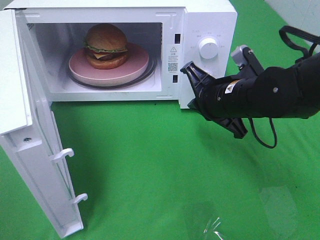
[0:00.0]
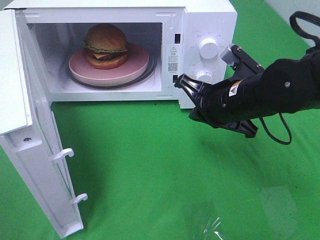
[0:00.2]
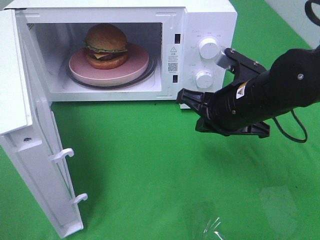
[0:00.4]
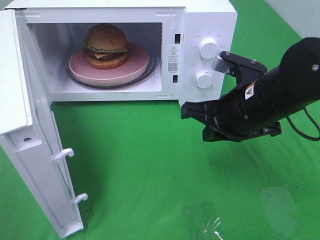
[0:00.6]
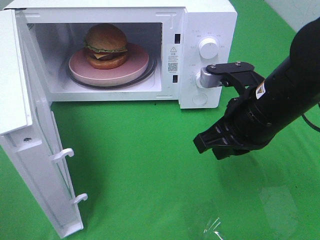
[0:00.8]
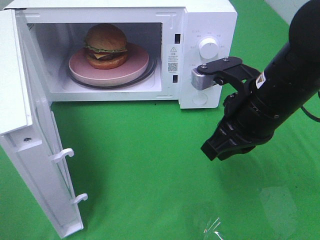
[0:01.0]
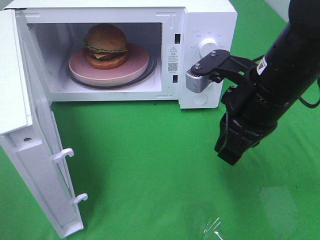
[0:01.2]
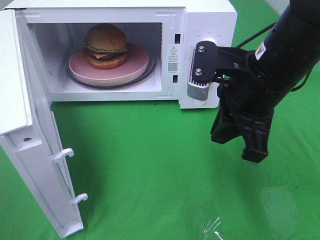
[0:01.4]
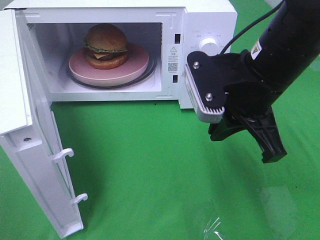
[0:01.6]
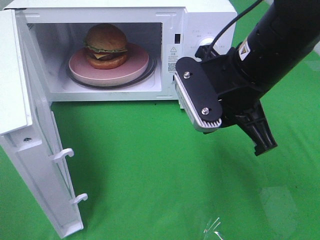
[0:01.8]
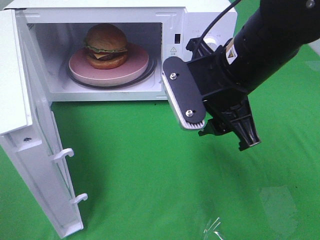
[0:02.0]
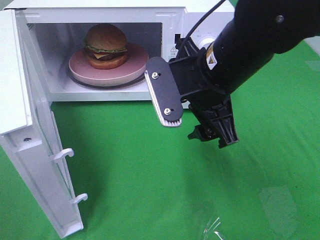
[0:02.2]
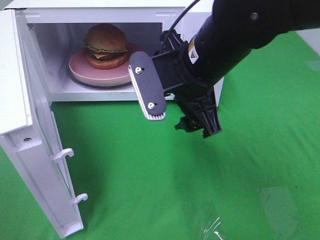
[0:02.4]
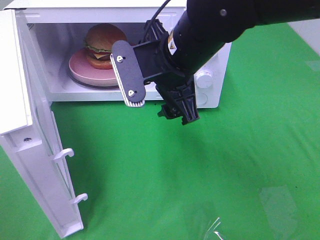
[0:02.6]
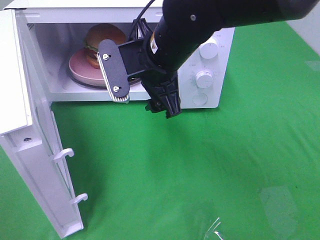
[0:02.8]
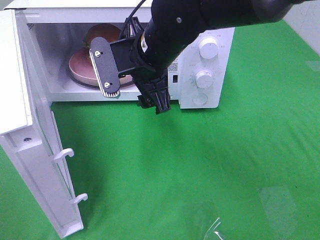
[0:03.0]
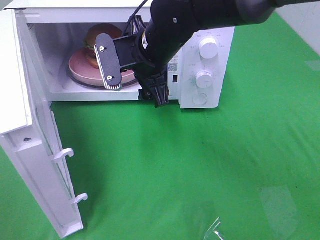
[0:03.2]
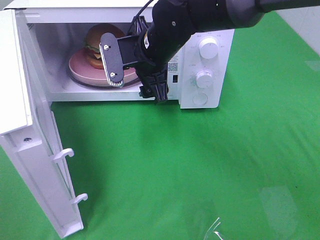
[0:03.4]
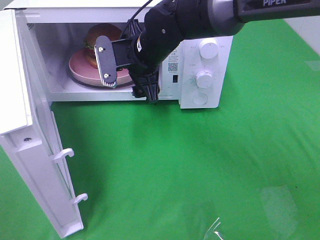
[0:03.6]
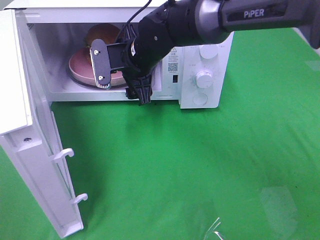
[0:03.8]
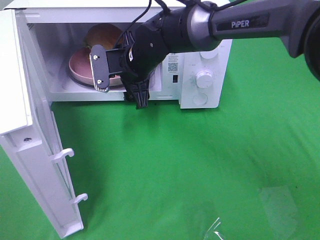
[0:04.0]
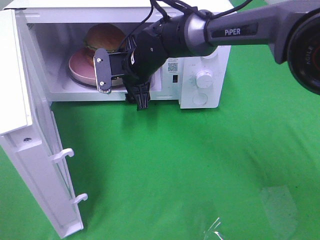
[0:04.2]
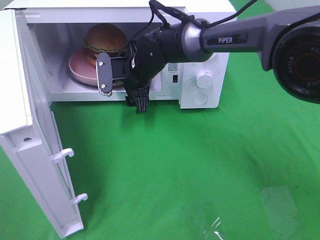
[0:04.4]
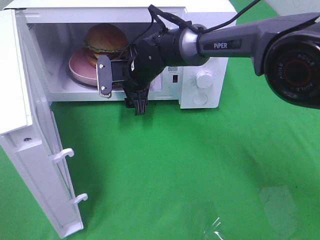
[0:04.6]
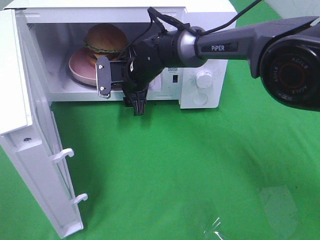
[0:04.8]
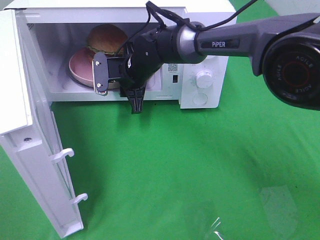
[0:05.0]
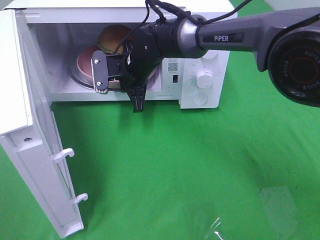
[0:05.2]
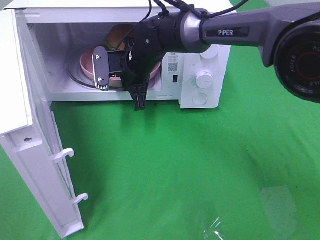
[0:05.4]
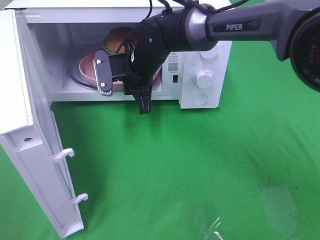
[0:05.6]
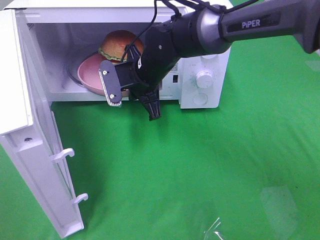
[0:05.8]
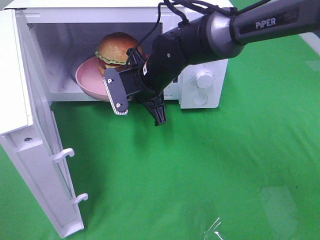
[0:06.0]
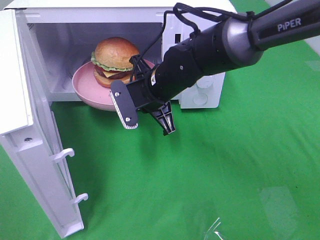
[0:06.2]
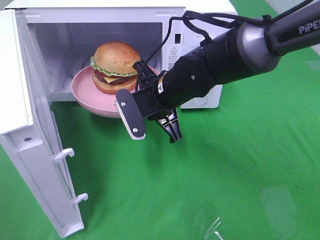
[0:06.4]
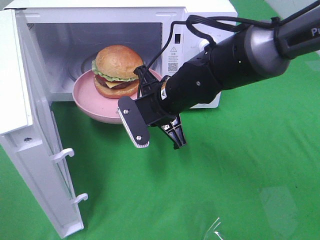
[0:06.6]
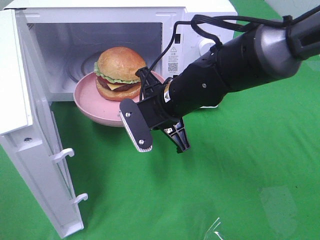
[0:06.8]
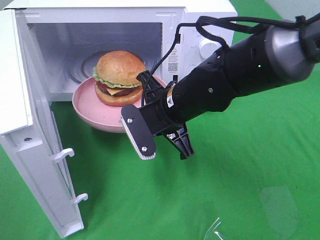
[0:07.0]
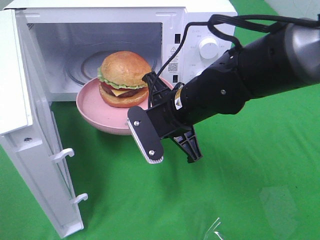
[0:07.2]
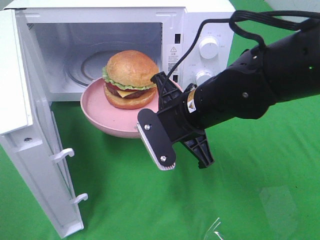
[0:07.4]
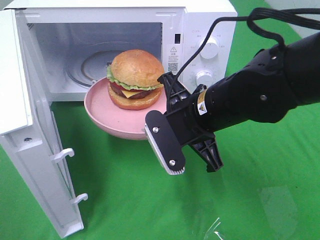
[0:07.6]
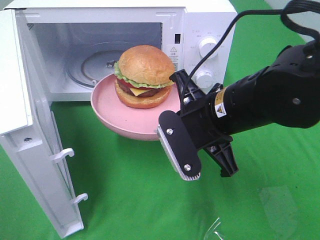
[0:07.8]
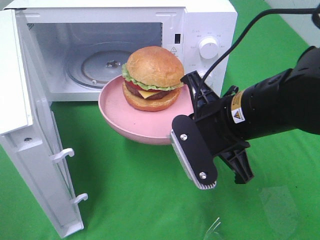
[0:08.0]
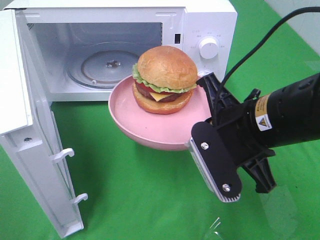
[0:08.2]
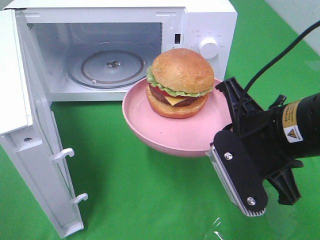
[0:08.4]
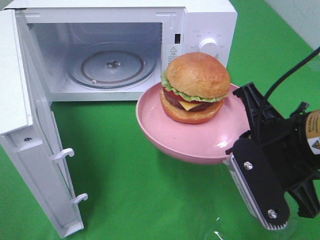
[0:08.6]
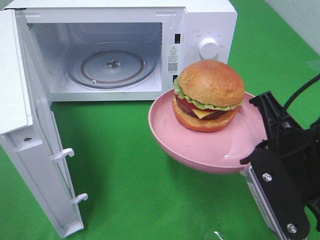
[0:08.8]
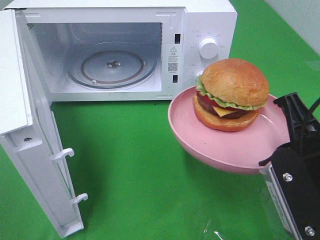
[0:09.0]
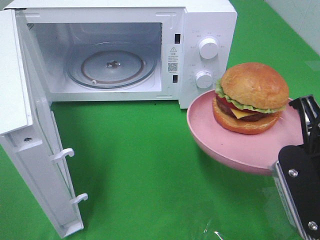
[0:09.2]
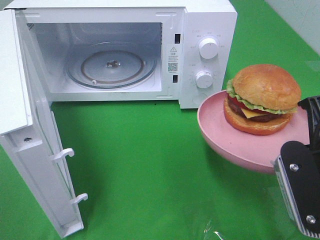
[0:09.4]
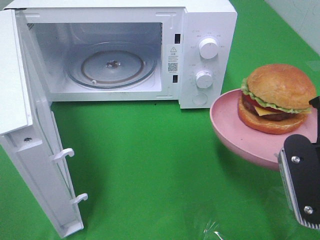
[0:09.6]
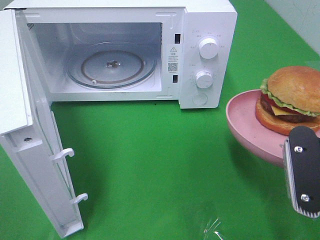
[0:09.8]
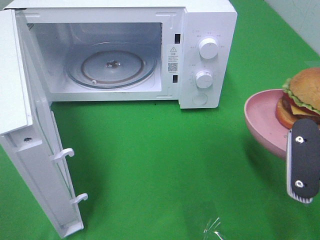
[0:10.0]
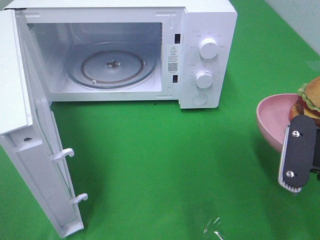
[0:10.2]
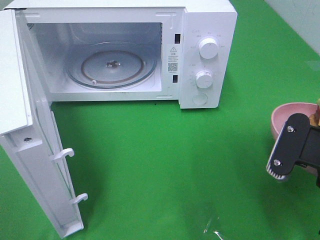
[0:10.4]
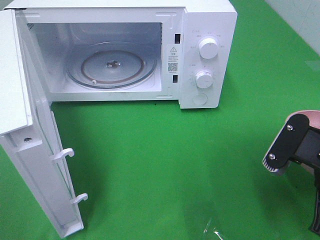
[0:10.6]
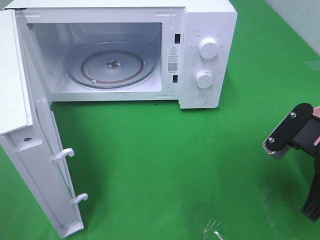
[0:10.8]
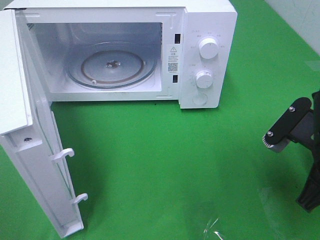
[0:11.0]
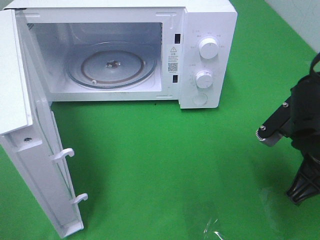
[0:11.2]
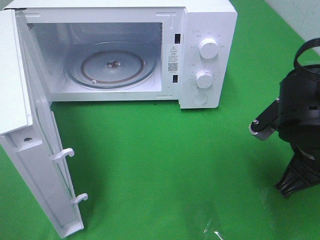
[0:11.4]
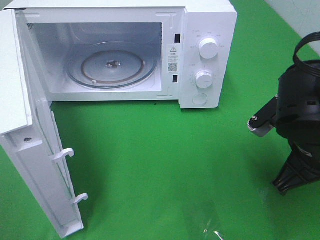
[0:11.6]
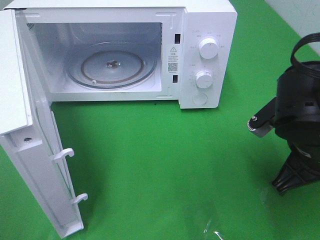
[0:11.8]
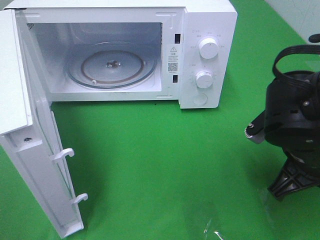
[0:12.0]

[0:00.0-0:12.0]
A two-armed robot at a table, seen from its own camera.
Task of the whole recording: Heat the burger.
Step, 0:00.0 to 0:05.8: Right hand: grab the plate with the hamburger.
0:00.0 to 0:01.6: The right gripper moves upward, some 10 cm.
0:01.6 to 0:03.0: The right gripper is displaced to the left and forward by approximately 15 cm, and opens up.
0:03.0 to 0:04.4: The right gripper moves forward and downward, some 15 cm.
0:04.4 to 0:06.0: The right gripper goes about 5 cm backward, and closes up.
0:06.0 to 0:07.6: The right gripper heads backward and to the right, covering approximately 15 cm.
0:07.6 to 0:09.0: The right gripper is displaced to the right and backward by approximately 15 cm.
0:10.4 to 0:12.0: The right gripper heads forward, covering roughly 5 cm.

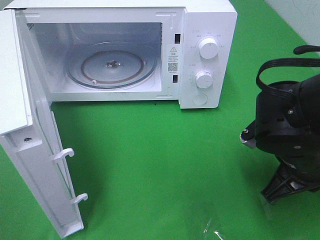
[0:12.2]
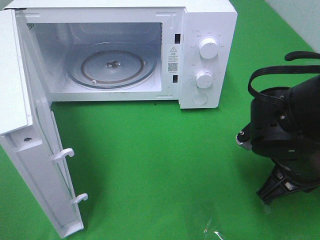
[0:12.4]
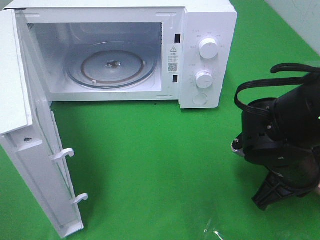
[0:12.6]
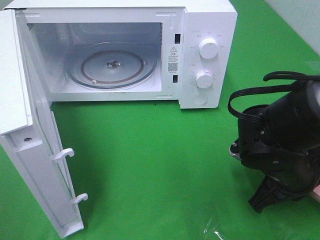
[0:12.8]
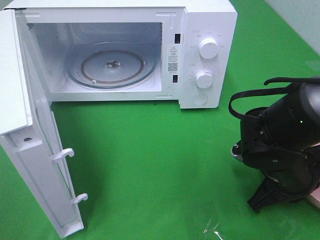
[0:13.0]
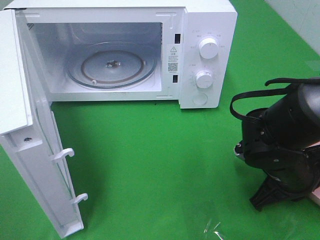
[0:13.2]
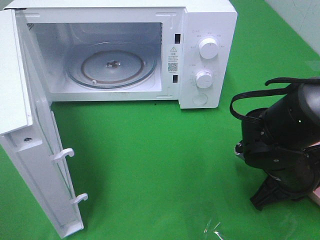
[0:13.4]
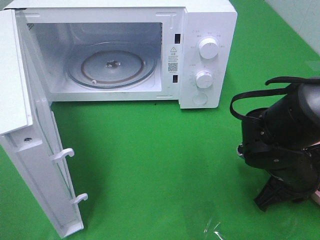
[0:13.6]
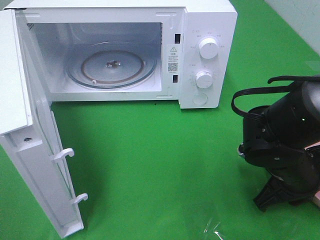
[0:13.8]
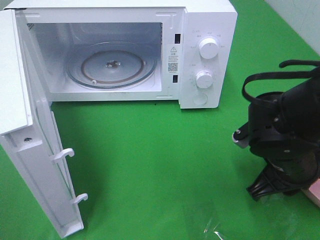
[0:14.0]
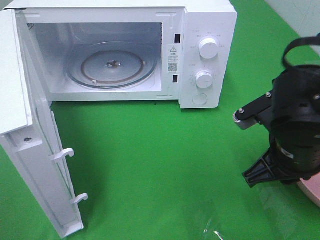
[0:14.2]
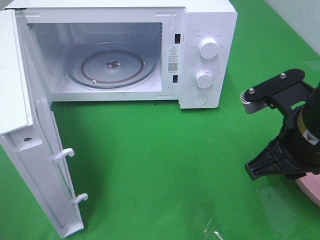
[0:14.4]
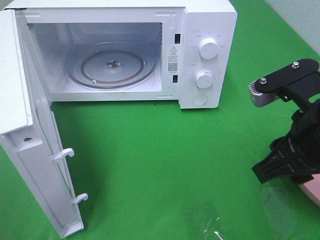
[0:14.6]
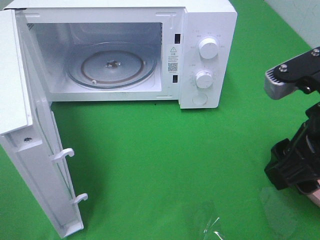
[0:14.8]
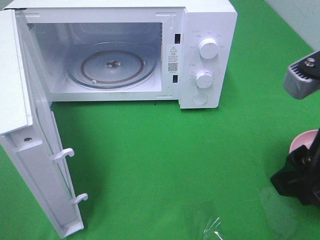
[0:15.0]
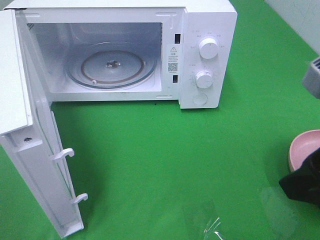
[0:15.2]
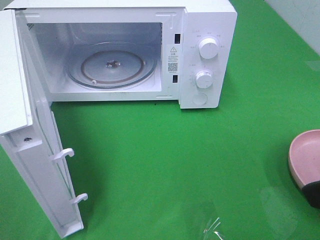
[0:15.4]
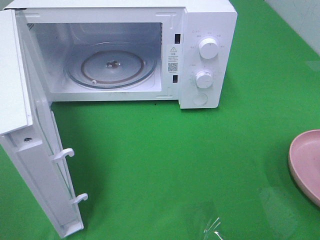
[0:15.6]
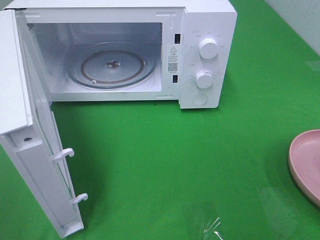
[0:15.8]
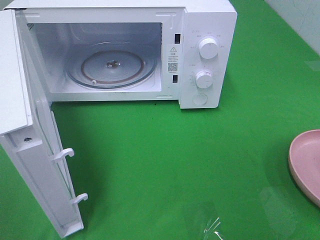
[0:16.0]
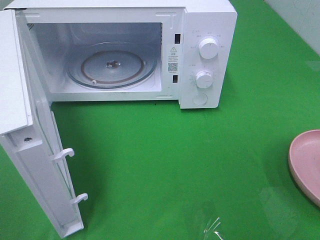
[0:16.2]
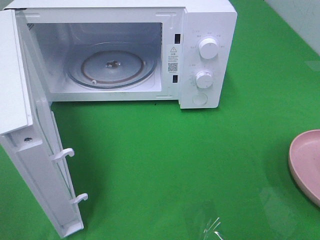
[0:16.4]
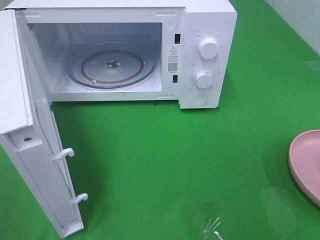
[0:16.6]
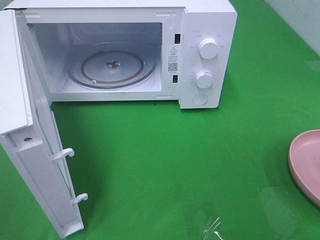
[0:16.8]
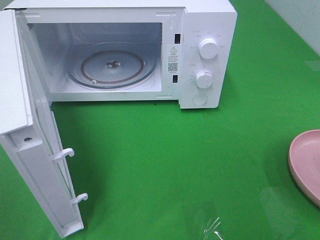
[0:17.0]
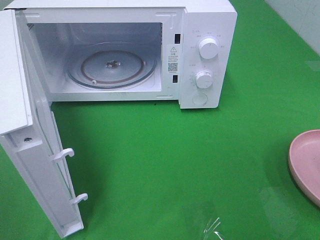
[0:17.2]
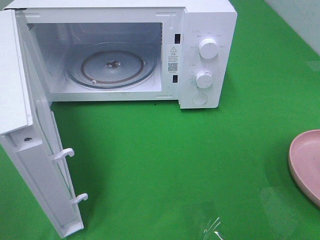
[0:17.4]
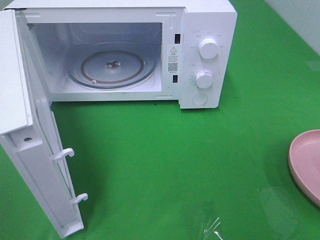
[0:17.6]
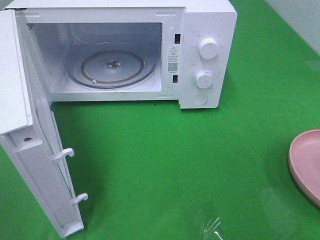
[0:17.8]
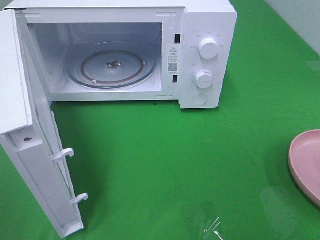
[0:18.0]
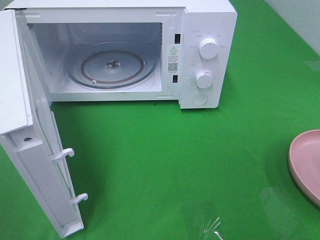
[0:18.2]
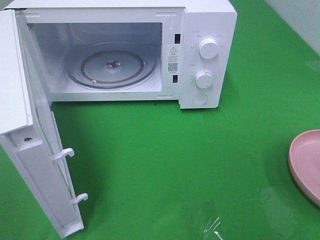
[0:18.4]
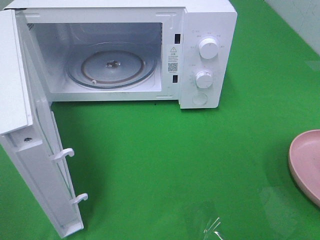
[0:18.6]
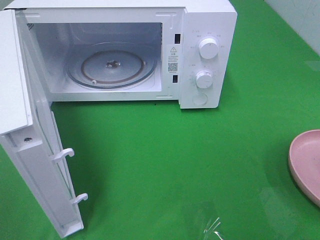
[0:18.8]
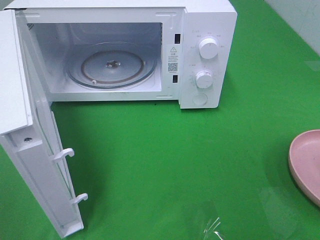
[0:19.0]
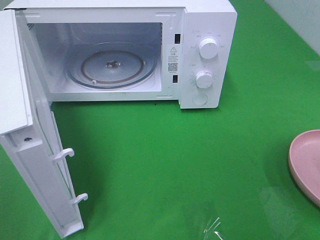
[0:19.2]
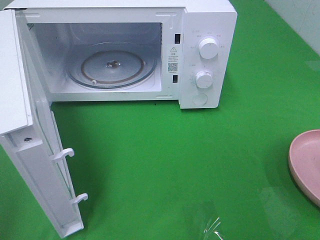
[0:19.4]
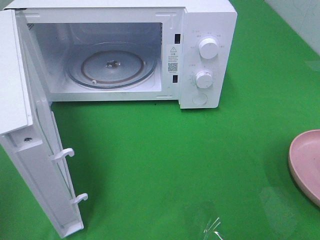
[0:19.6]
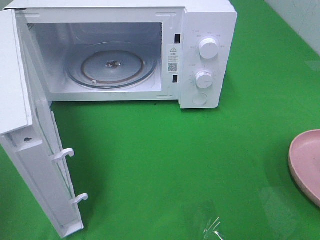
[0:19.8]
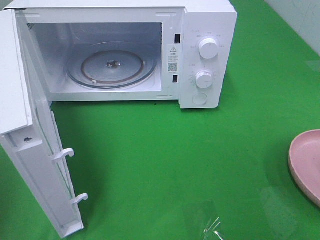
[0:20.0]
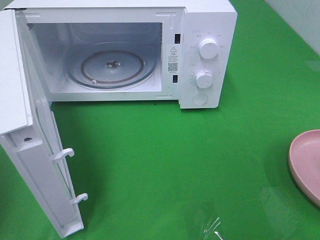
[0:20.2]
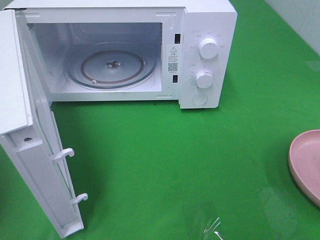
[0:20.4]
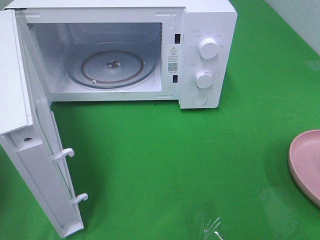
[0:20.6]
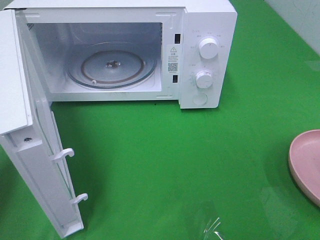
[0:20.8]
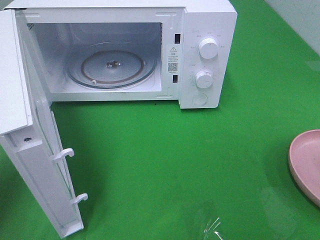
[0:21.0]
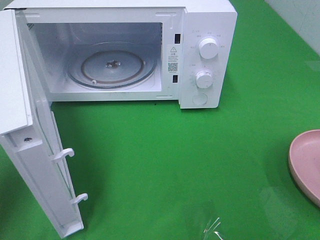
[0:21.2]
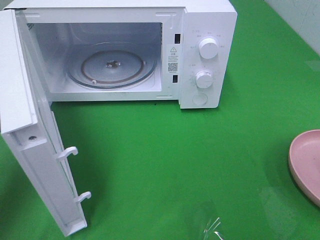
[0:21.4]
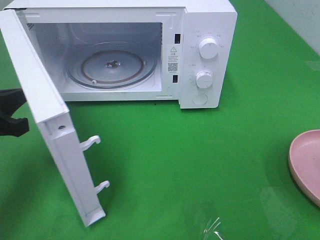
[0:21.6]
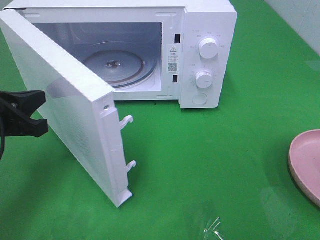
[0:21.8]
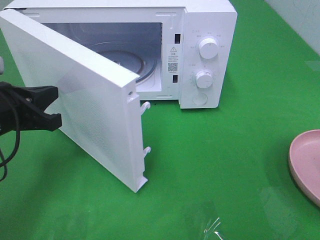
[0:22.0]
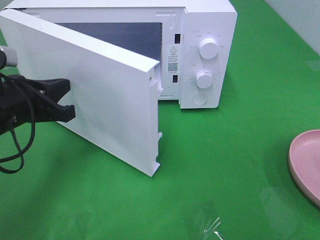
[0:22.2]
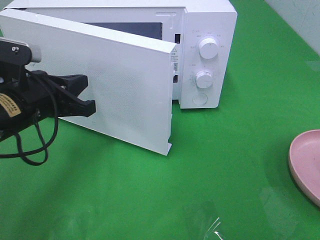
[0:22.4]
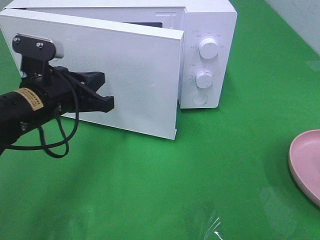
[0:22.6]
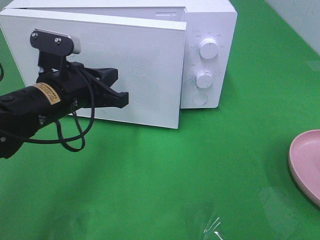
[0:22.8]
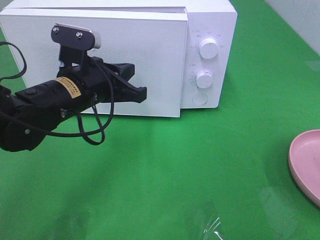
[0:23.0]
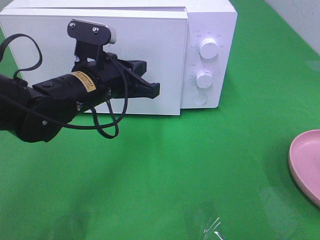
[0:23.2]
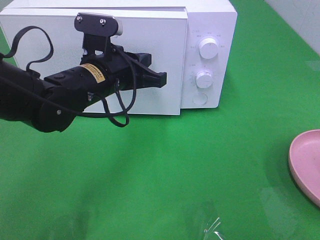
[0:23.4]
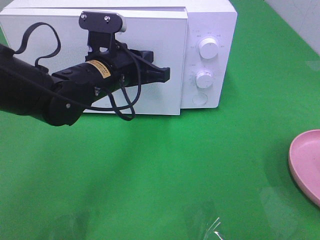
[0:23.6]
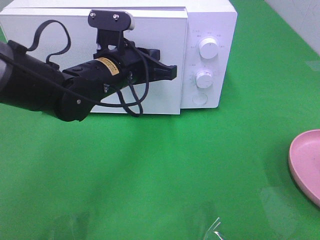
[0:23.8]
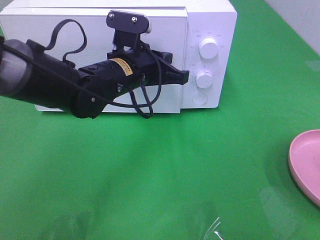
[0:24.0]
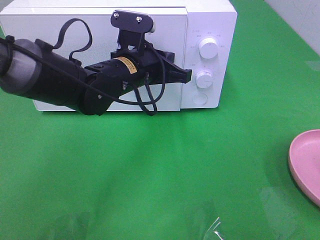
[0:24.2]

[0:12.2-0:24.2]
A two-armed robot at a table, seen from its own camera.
Task of the whole recording: Heat the burger.
Step, 0:12.2 to 0:14.2: Right hand: place the plate on the table.
0:12.2 to 0:13.8: The right gripper travels downward by approximately 5 cm.
0:13.8 to 0:15.2: The right gripper shifts some 20 cm upward and backward, and opens.
0:15.2 to 0:16.6: The right gripper shifts some 15 cm backward and to the right.
0:16.6 to 0:18.2: The two grippers keep their place.
0:19.8 to 0:21.2: The left gripper travels forward and downward by roughly 15 cm.
0:21.2 to 0:22.6: The left gripper moves to the right and forward, some 15 cm.
0:22.6 to 0:24.2: The left gripper travels to the right and forward by approximately 15 cm.
